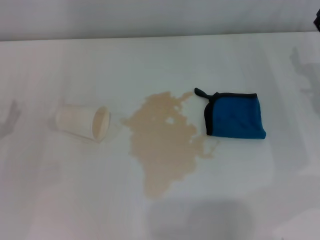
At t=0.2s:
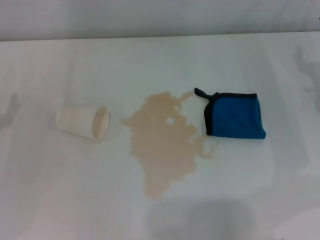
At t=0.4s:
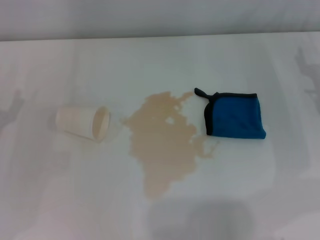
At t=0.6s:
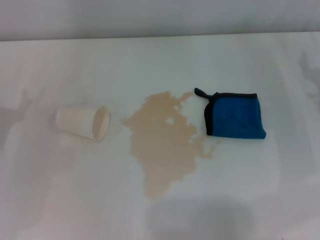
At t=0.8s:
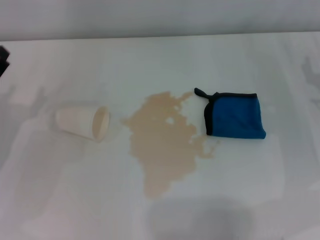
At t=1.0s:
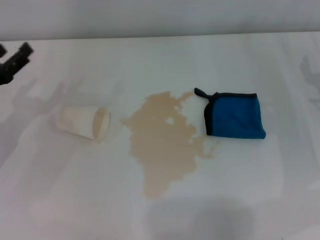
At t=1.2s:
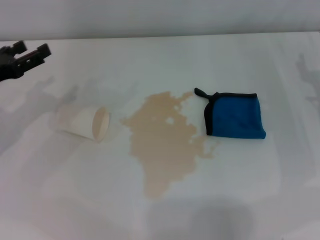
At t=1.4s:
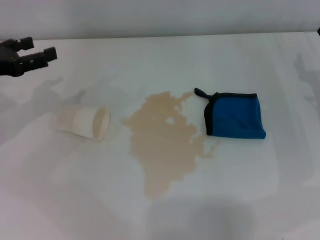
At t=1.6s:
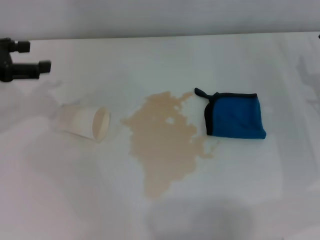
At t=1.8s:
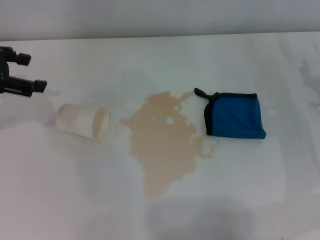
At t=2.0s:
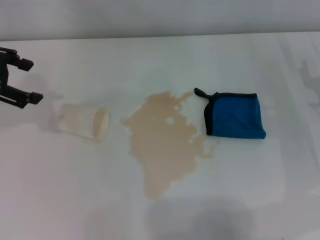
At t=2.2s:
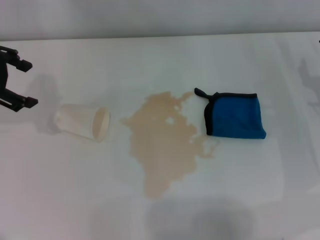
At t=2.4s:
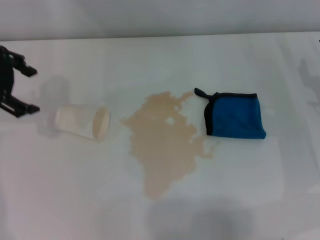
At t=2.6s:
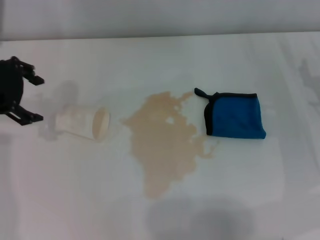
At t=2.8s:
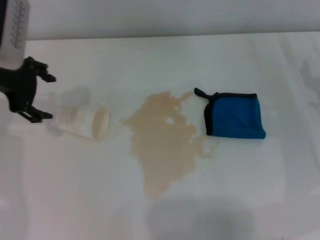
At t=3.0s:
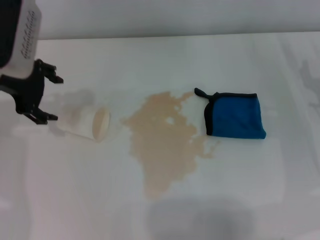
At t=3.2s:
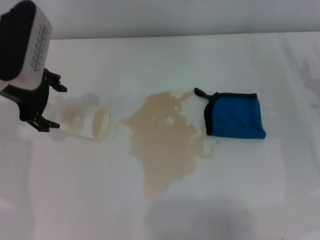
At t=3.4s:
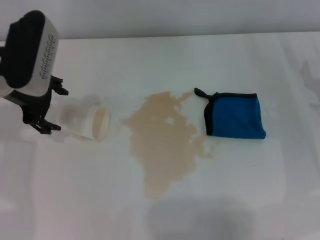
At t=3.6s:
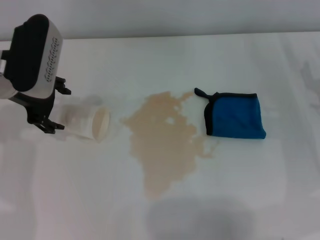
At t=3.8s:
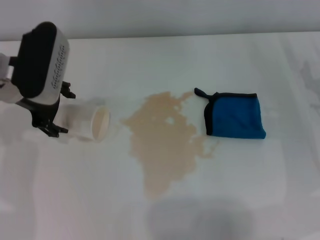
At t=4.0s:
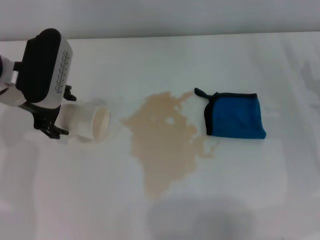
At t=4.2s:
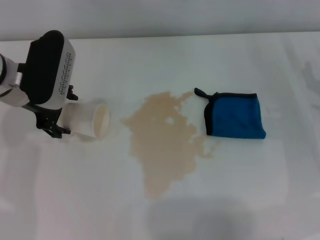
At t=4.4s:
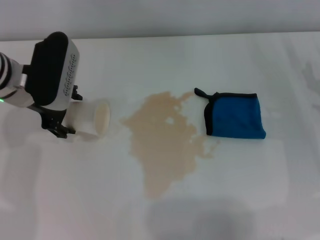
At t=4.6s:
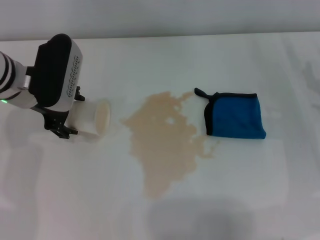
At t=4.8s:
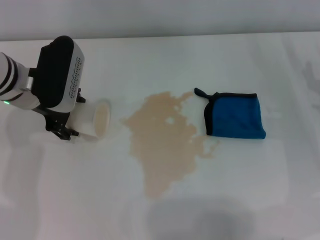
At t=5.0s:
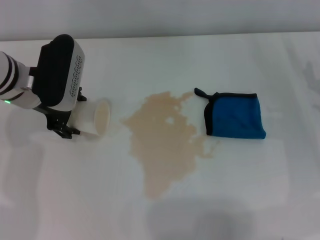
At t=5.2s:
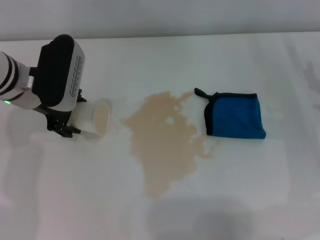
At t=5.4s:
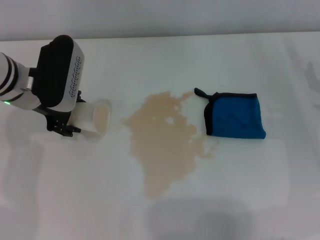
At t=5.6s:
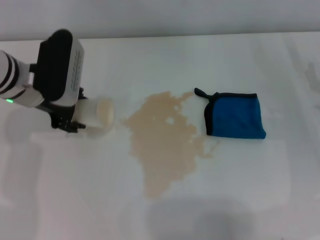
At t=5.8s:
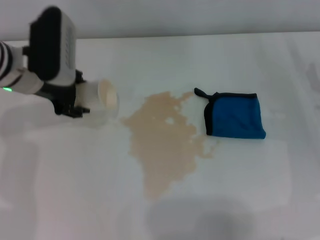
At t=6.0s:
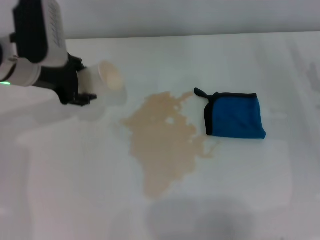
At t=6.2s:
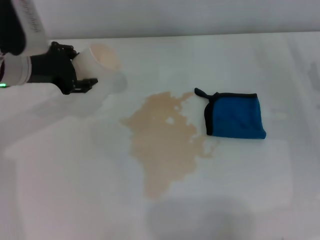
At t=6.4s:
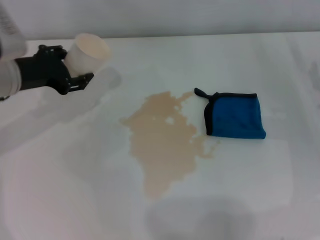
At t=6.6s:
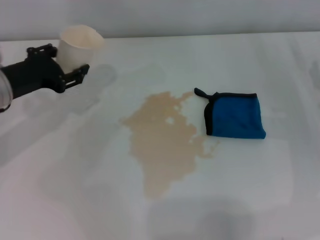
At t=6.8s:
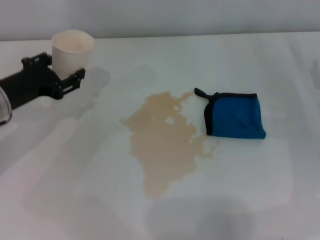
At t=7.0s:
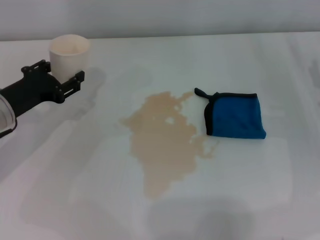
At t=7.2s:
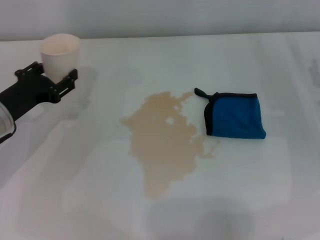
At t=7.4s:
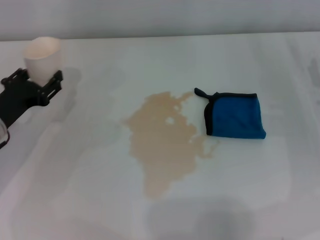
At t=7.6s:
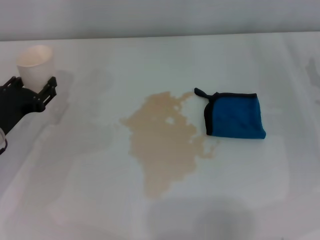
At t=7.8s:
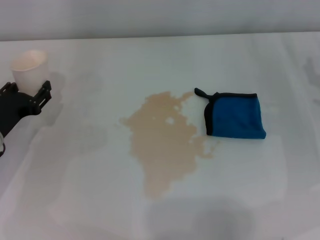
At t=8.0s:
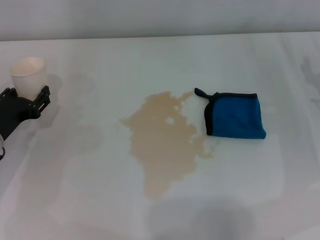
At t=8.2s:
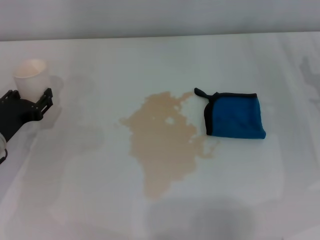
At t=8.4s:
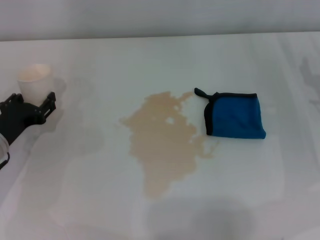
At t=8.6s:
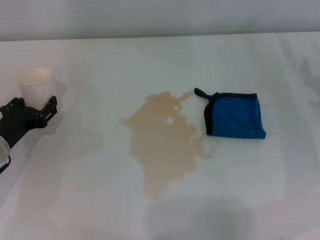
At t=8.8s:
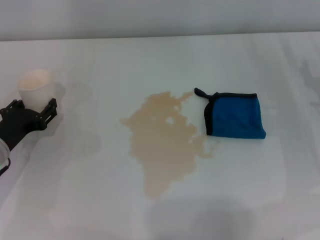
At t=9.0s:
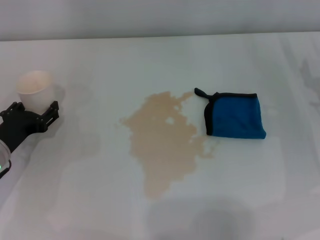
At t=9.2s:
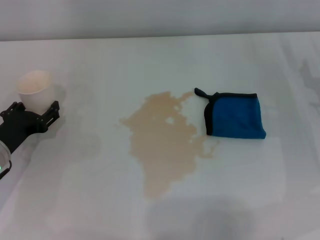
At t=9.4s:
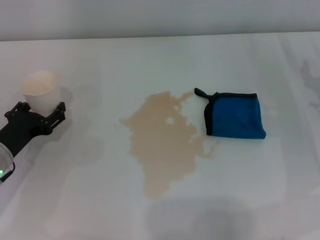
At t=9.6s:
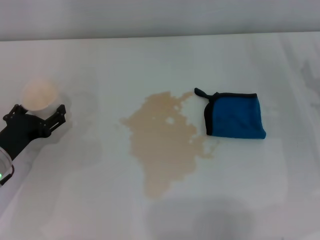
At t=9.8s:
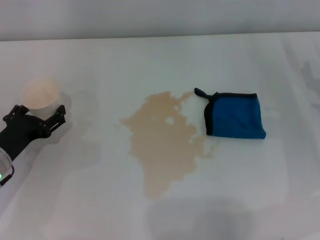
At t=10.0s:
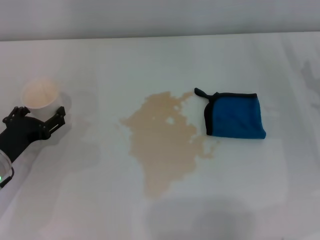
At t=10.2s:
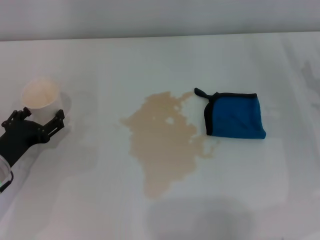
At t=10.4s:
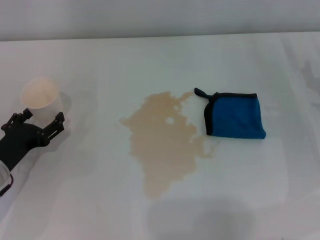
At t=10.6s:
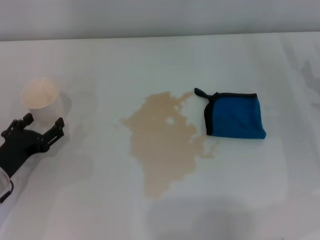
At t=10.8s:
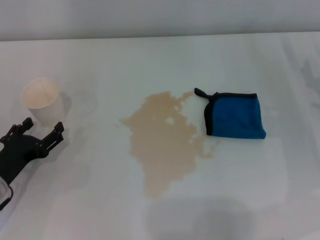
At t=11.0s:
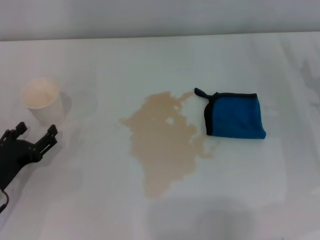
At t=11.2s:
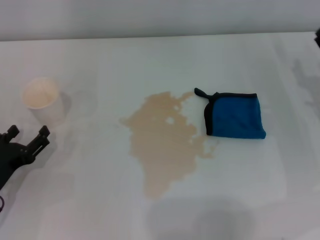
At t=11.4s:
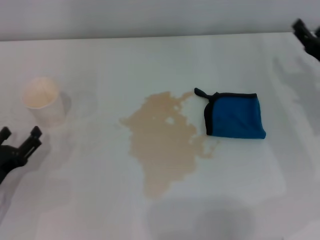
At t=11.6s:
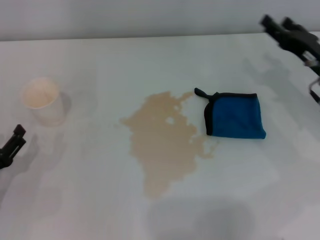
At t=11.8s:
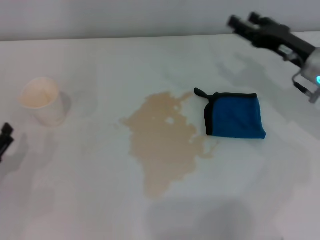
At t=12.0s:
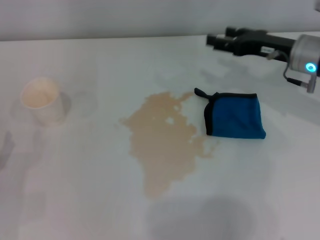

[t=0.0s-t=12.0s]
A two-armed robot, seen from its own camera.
Step, t=0.0s to t=5.2s: Grasp the paper cup with the left gripper.
Step, t=5.6s to t=9.6s: Stand the paper cup upright with the left gripper.
t=0.0s to t=1.6s: The left gripper heads upward and forward, covering roughly 20 cm.
t=1.6s to t=3.0s: The left gripper travels to the right by roughly 10 cm.
t=3.0s to t=4.4s: The left gripper heads downward, covering roughly 5 cm.
t=4.4s to t=6.0s: The left gripper closes up.
t=6.0s to t=7.6s: The left gripper shifts roughly 15 cm downward, backward and to the left.
t=7.6s to t=9.0s: The grippers stay close to where they were, moving slightly.
t=9.0s to t=10.4s: The left gripper opens.
t=10.4s to t=12.0s: The right gripper is displaced forward, upward and to the left by about 15 cm, while the left gripper is displaced backward and to the left by roughly 10 cm.

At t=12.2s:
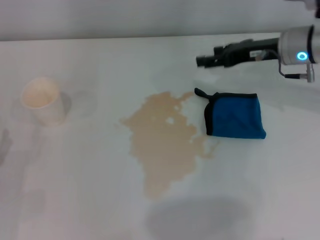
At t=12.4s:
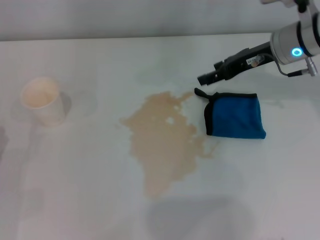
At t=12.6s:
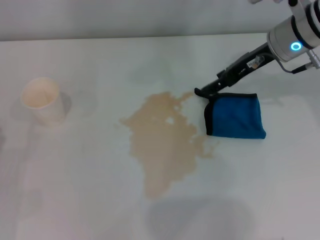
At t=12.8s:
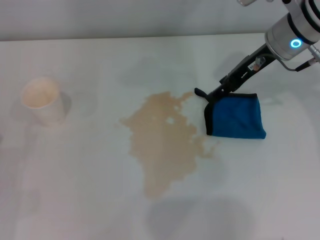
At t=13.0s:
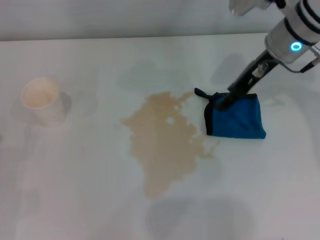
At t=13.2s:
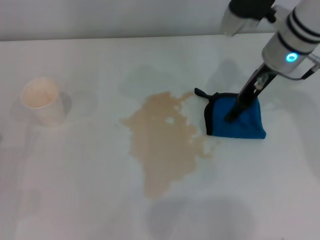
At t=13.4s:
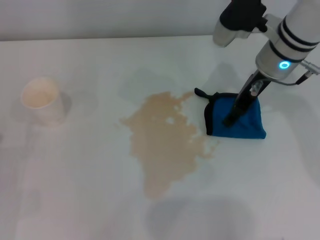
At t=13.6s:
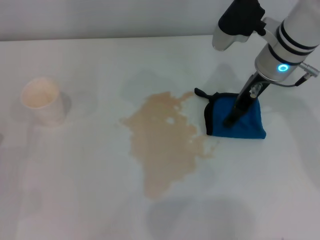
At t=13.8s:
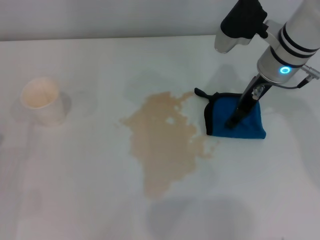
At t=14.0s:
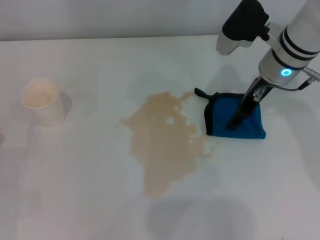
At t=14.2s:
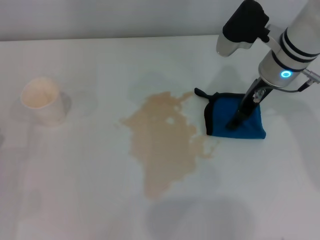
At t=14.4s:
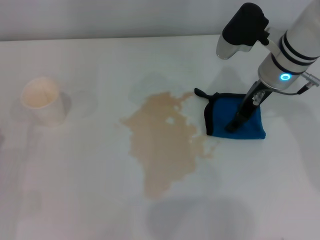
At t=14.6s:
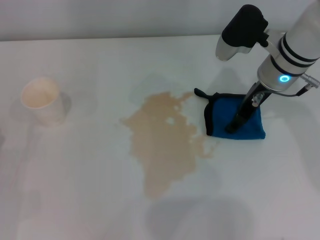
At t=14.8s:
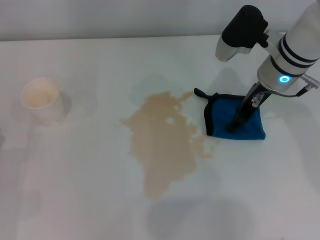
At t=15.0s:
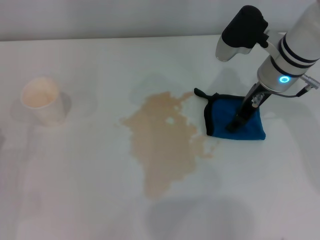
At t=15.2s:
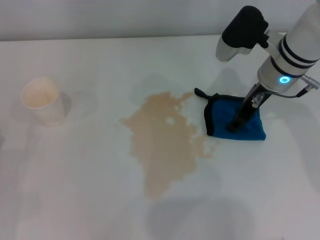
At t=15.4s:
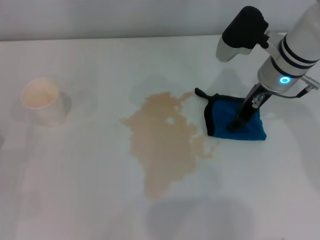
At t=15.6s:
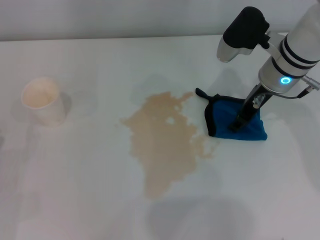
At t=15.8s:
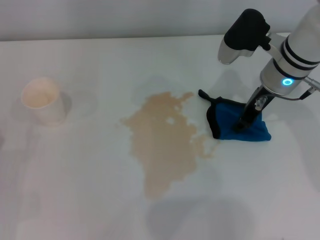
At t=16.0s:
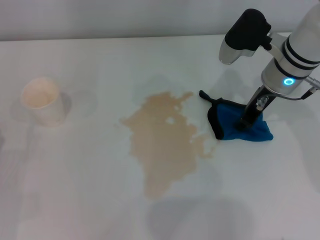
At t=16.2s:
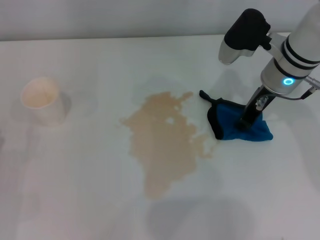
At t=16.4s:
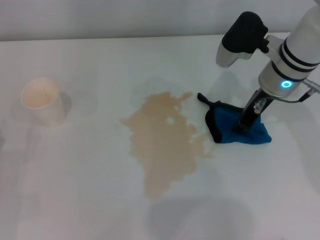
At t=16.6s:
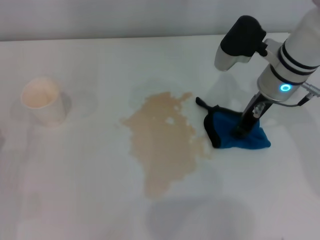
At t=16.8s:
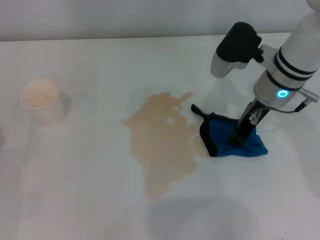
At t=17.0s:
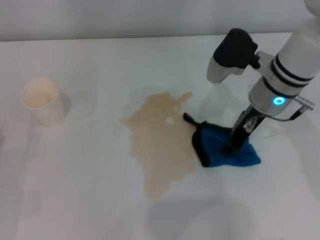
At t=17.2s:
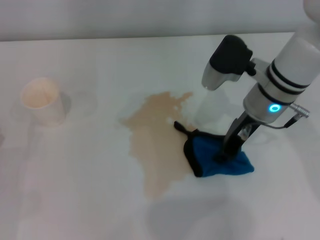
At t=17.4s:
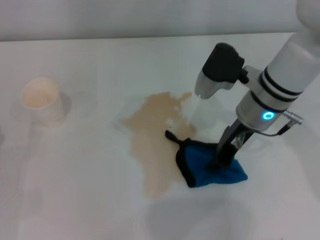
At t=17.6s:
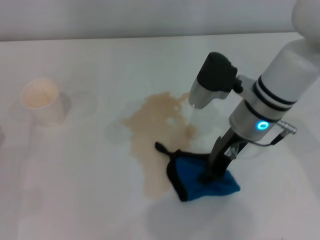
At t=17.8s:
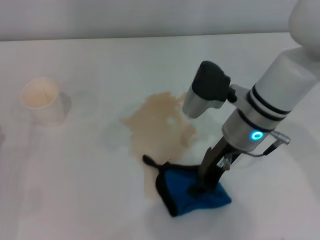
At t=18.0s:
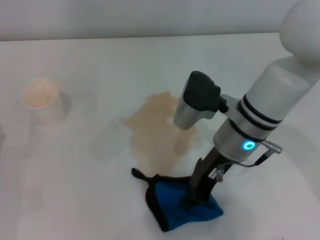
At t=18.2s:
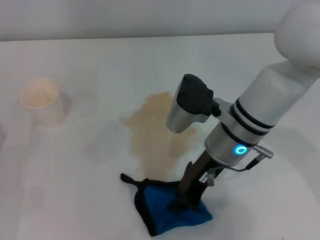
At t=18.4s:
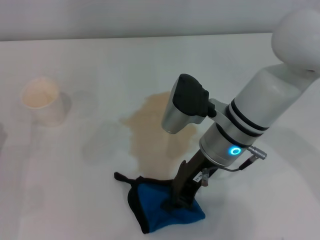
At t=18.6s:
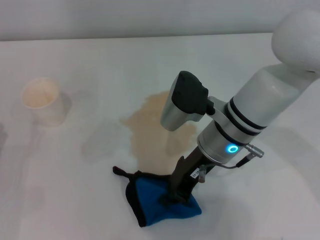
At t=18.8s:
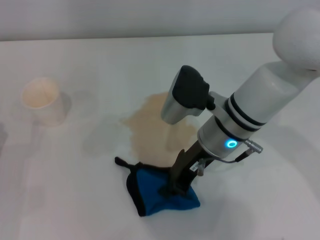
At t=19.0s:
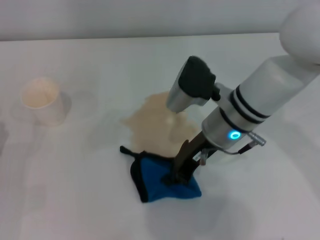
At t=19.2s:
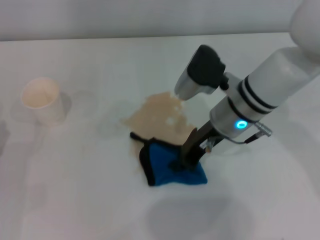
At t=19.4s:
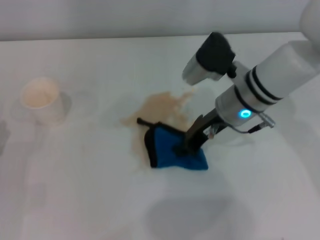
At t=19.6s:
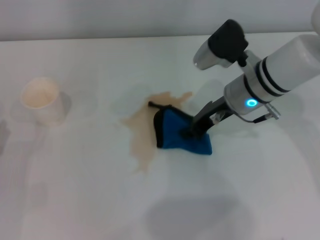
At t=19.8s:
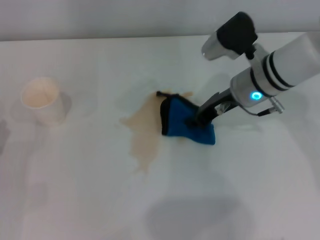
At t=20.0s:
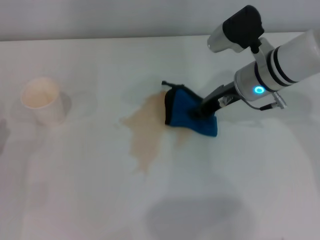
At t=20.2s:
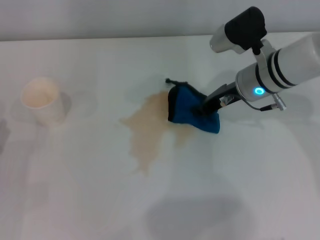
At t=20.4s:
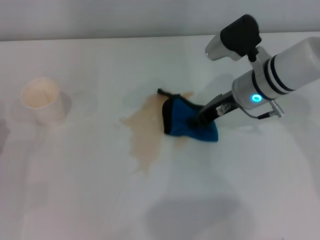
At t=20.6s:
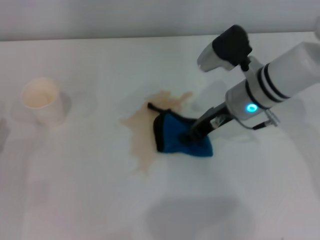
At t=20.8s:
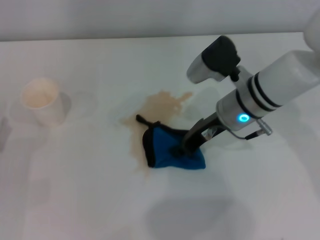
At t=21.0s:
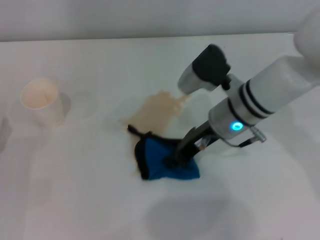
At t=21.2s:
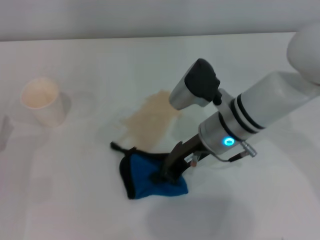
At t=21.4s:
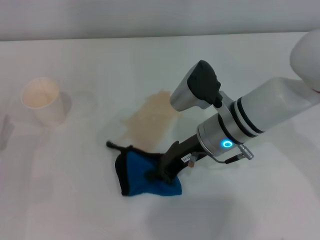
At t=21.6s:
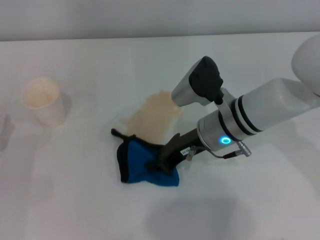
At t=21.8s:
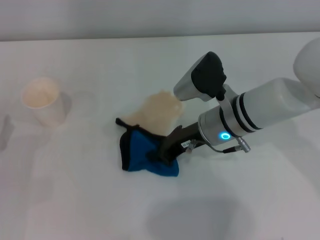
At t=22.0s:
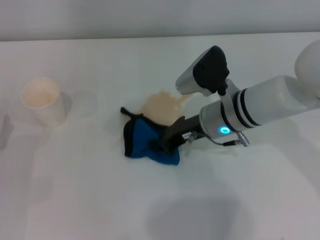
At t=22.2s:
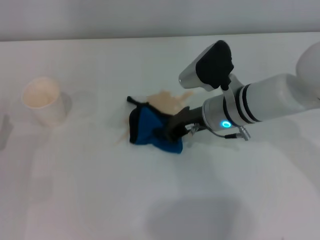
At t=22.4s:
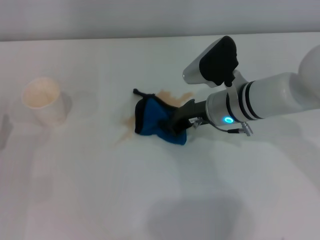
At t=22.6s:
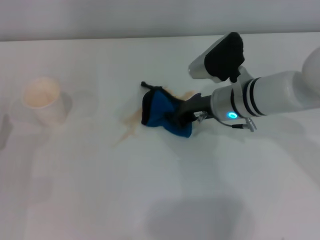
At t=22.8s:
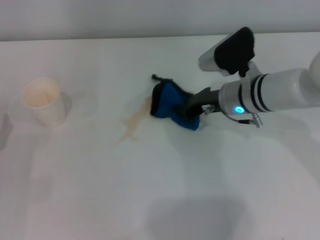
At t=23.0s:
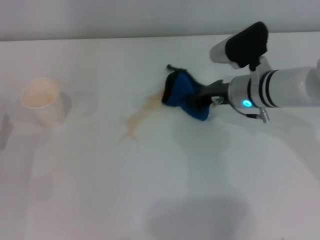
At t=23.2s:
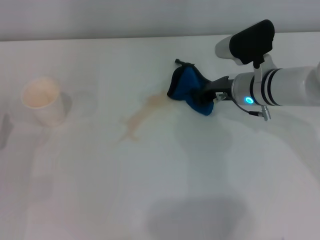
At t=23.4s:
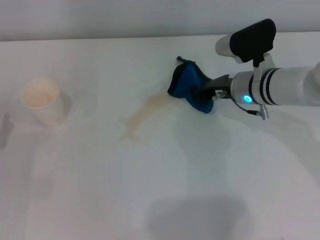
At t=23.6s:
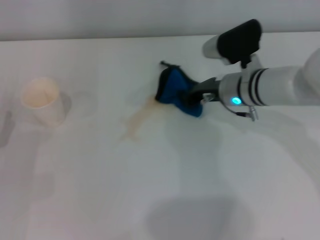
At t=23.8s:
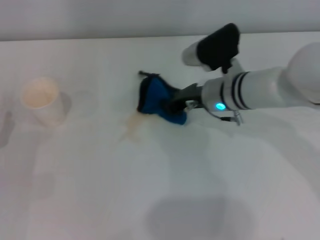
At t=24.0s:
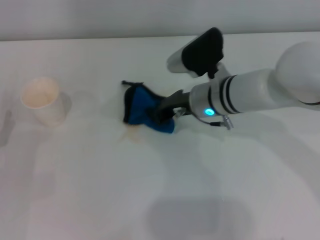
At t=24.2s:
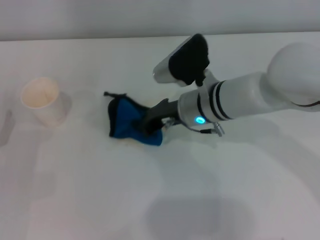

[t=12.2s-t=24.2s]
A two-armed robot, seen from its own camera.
Step, t=12.2s to t=16.0s: Grasp the rag with the right gripper.
t=12.2s to t=13.8s: The right gripper goes roughly 5 cm to the left.
t=13.8s to t=15.2s: The grippers stay close to where they were, moving slightly.
t=15.2s to t=16.6s: The right gripper closes.
t=16.6s to t=18.2s: The right gripper shifts approximately 10 cm to the left and backward.
t=18.2s to t=19.8s: The right gripper shifts some 10 cm forward and to the right.
t=19.8s to t=21.2s: The right gripper heads to the left and backward, covering roughly 5 cm.
t=22.6s to t=24.2s: The right gripper heads to the left, covering approximately 5 cm.
